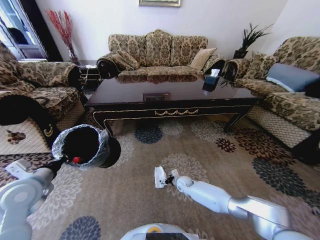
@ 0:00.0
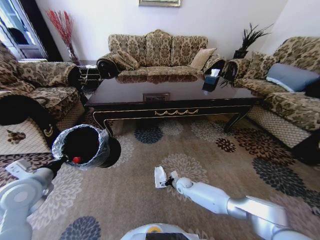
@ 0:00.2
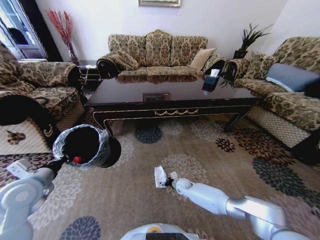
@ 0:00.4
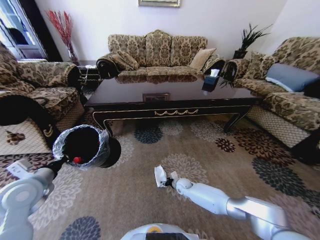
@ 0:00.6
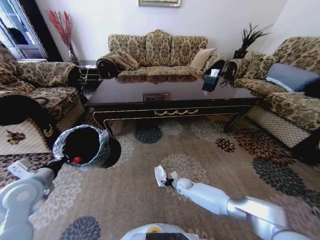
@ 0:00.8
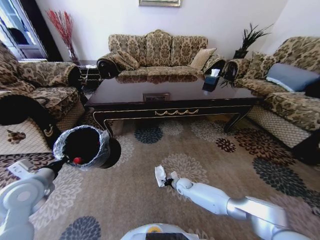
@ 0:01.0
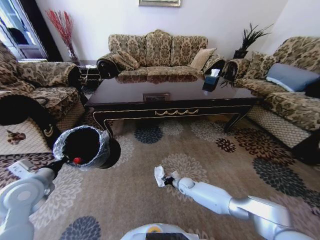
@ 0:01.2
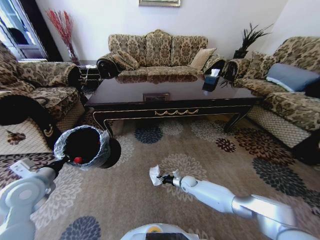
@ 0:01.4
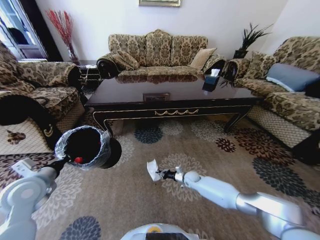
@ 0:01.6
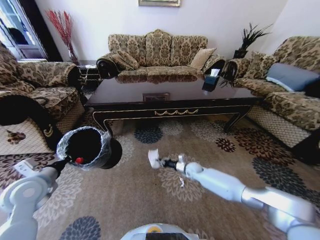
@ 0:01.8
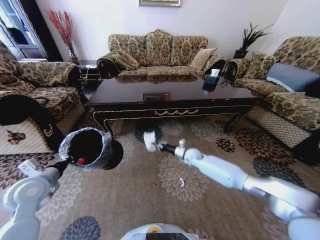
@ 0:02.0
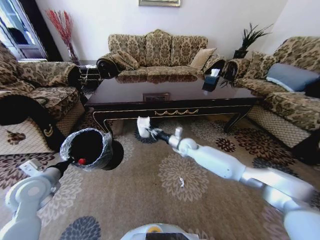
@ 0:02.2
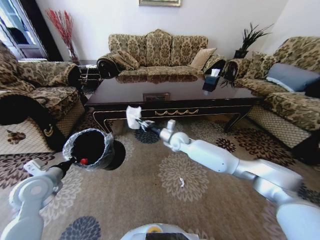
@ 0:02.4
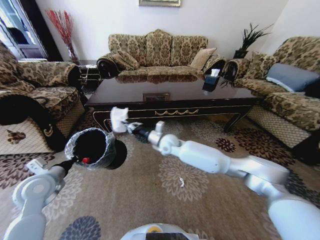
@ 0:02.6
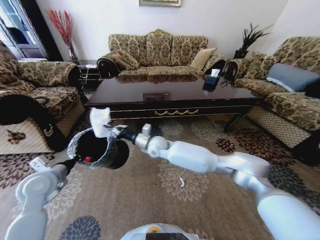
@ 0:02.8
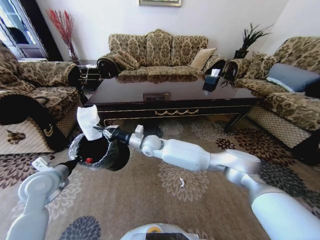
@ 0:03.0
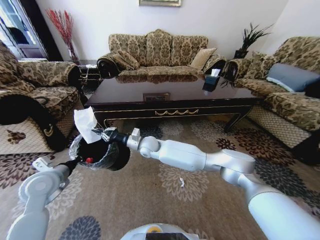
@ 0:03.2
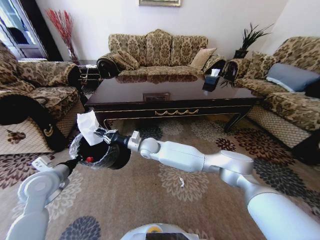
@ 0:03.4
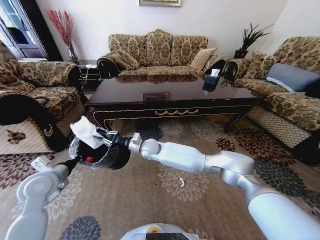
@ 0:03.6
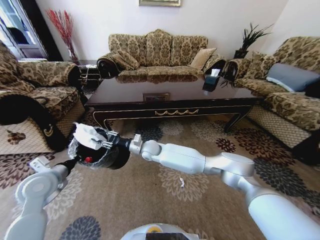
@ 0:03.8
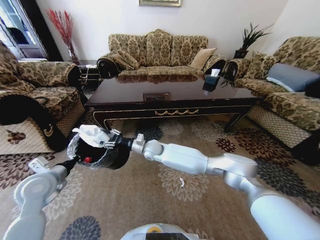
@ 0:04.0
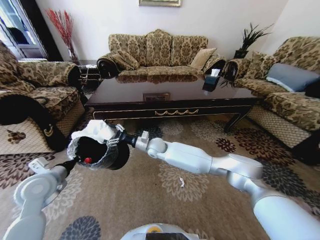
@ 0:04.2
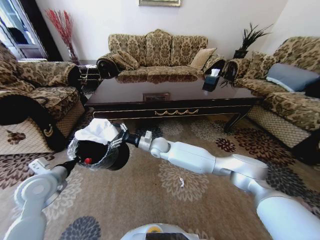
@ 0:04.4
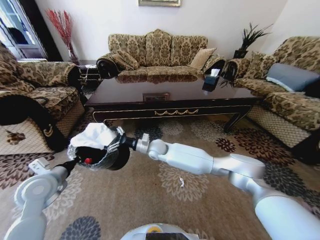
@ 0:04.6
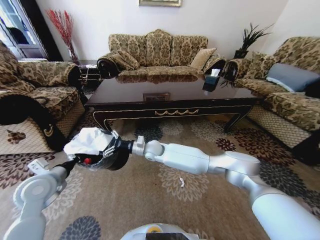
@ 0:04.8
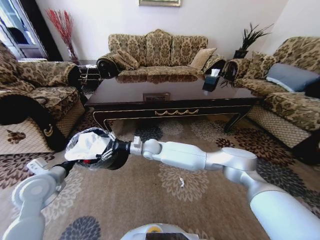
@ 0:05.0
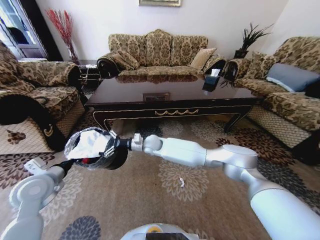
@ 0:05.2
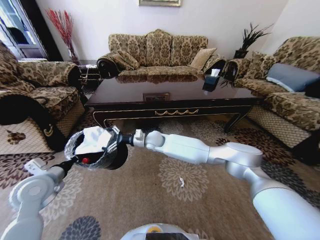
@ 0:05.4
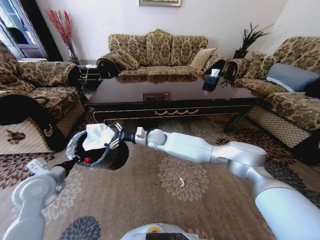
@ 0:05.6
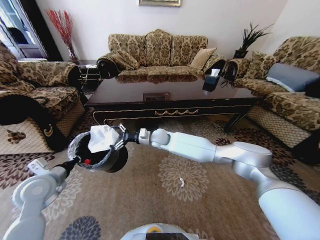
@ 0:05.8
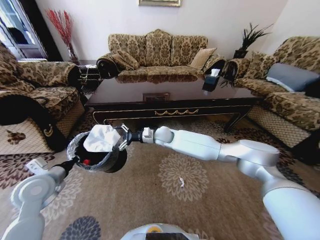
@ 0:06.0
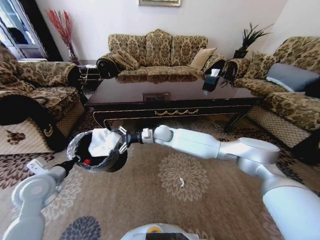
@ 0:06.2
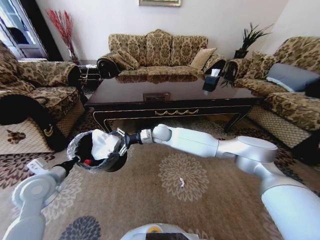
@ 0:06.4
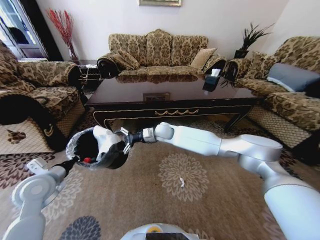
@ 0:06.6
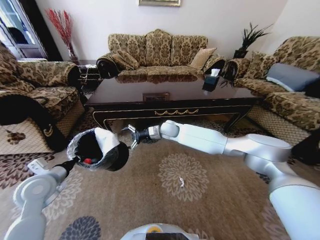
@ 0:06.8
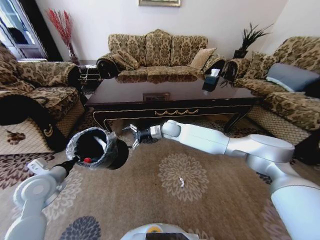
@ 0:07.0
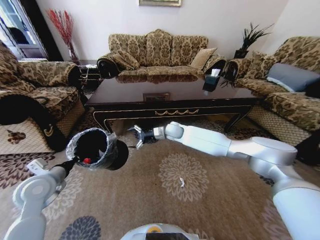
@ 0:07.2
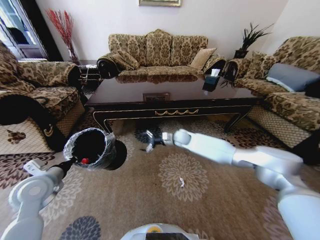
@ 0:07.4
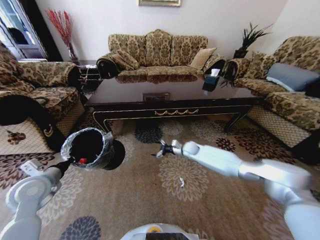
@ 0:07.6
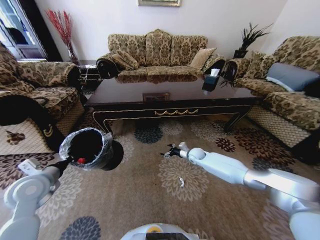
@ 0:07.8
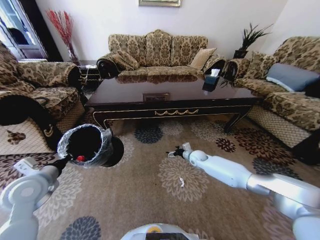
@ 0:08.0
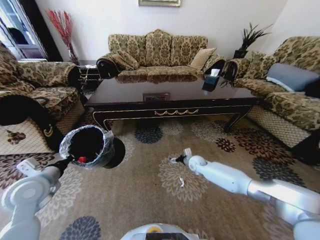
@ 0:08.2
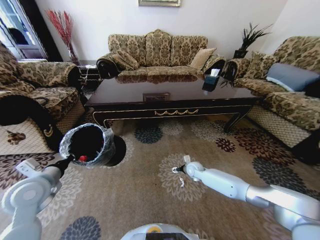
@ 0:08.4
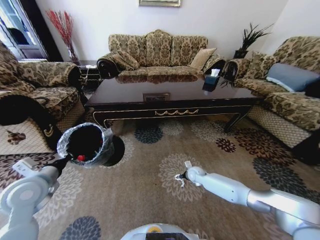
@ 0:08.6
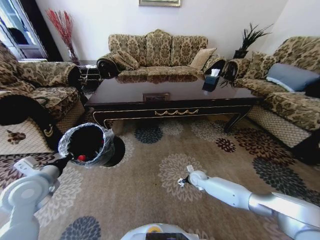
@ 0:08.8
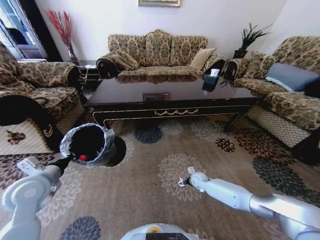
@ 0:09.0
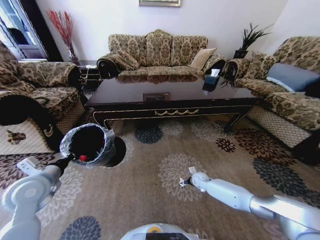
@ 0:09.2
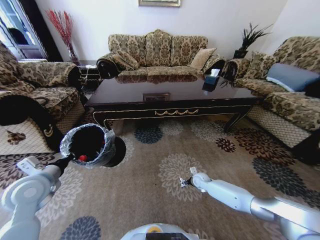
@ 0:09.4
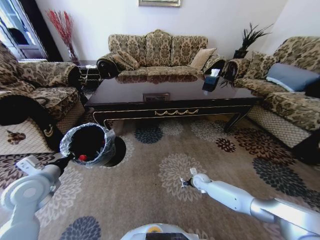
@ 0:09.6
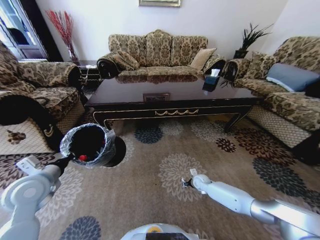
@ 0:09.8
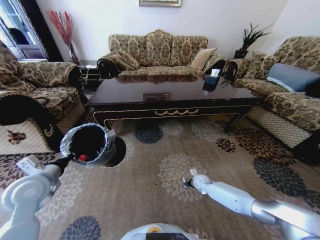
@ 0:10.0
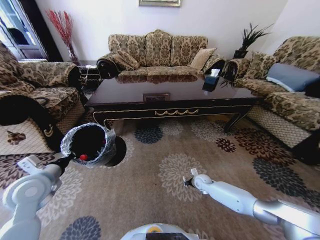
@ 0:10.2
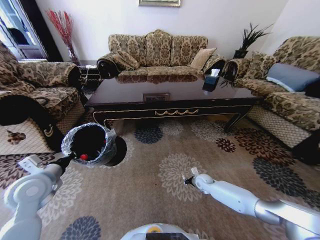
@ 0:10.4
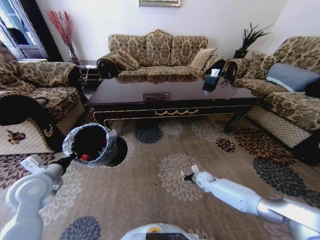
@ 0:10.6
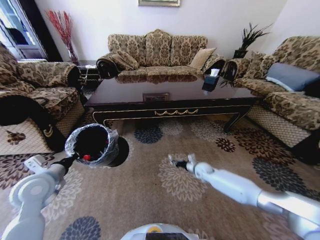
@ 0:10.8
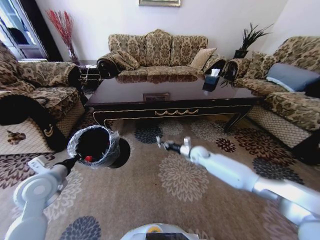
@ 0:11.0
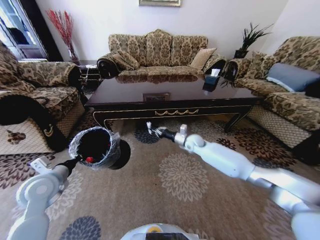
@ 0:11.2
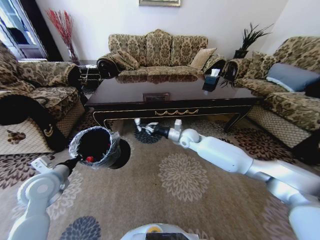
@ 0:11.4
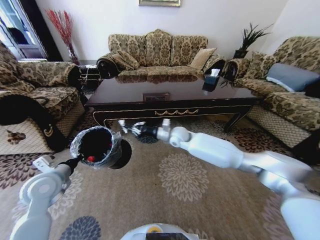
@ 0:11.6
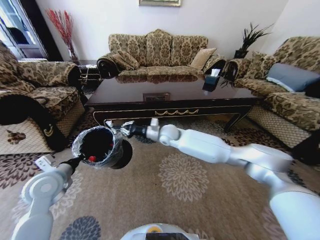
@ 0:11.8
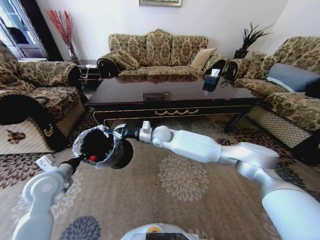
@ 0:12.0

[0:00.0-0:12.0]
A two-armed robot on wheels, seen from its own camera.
Task of the whole recording: Move to the front of the table and pick up the trash from the floor, then place it into the trash bin.
0:00.0 to 0:01.6: The right gripper ends up about 5 cm from where it was, and closes its fingers.
0:01.6 to 0:03.0: The right gripper travels upward and to the left by approximately 40 cm.
0:03.0 to 0:04.4: The right gripper moves roughly 5 cm, and opens its fingers.
0:04.4 to 0:06.0: The right gripper changes place by approximately 5 cm.
0:06.0 to 0:07.6: The right gripper heads to the right and downward, covering roughly 25 cm.
0:07.6 to 0:09.0: The right gripper moves downward and backward, roughly 20 cm.
0:09.0 to 0:10.4: The right gripper closes its fingers.
0:10.4 to 0:12.0: The right gripper shifts about 40 cm upward and to the left.

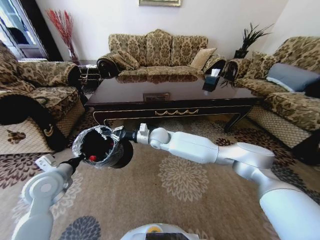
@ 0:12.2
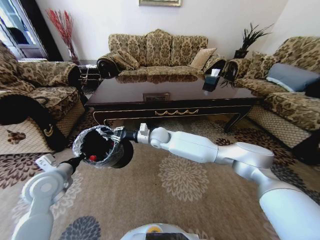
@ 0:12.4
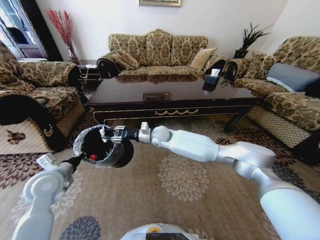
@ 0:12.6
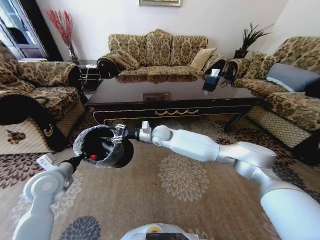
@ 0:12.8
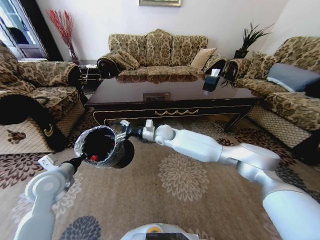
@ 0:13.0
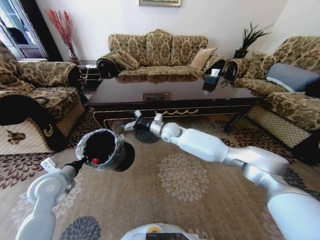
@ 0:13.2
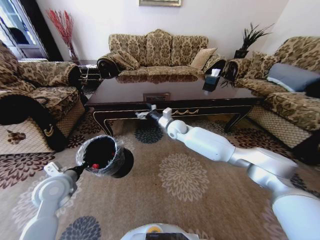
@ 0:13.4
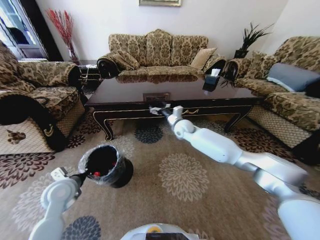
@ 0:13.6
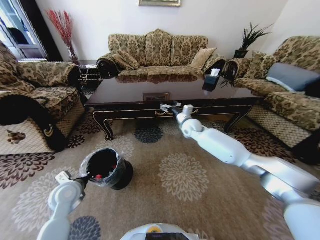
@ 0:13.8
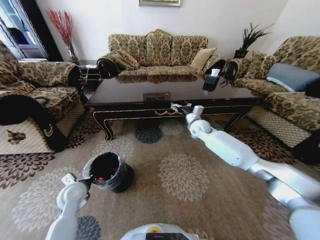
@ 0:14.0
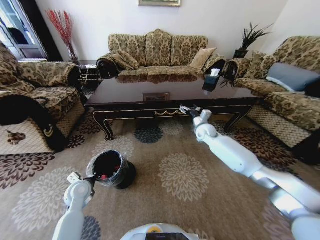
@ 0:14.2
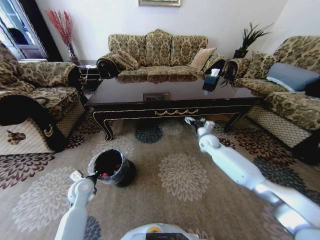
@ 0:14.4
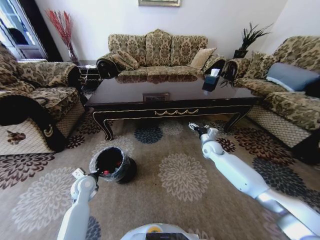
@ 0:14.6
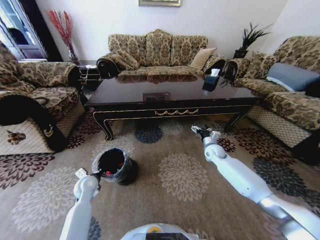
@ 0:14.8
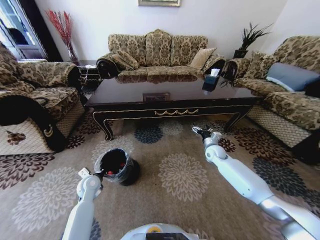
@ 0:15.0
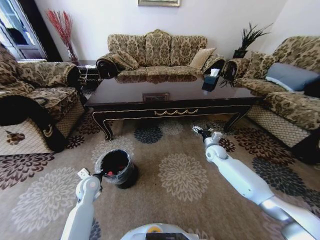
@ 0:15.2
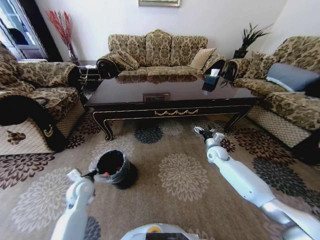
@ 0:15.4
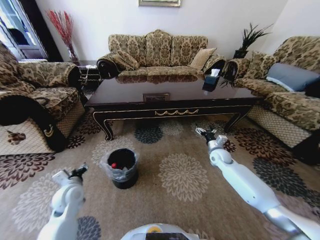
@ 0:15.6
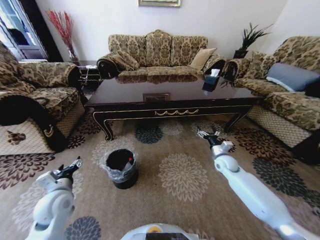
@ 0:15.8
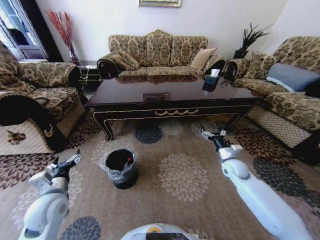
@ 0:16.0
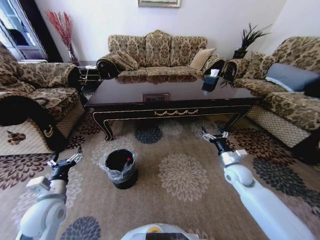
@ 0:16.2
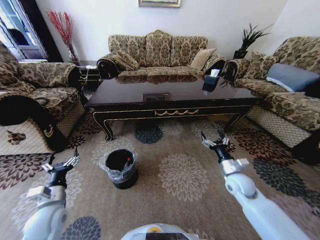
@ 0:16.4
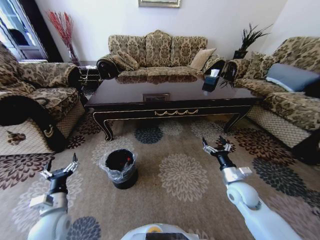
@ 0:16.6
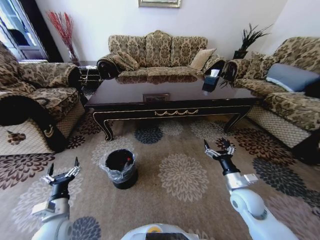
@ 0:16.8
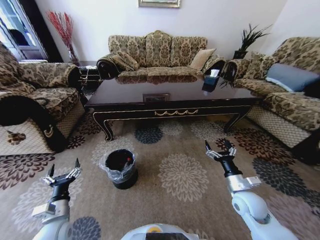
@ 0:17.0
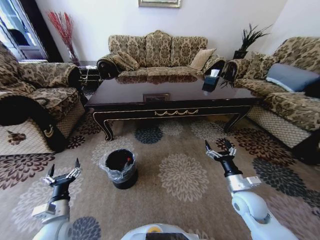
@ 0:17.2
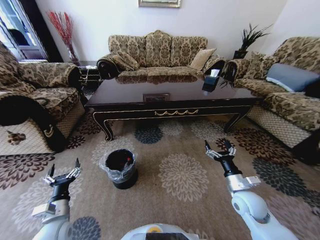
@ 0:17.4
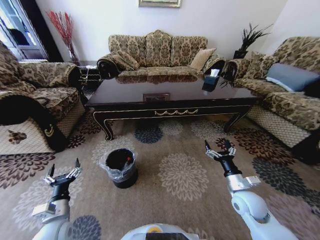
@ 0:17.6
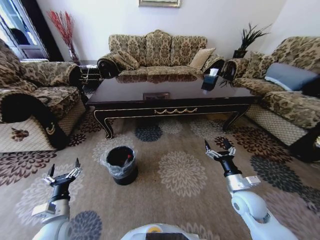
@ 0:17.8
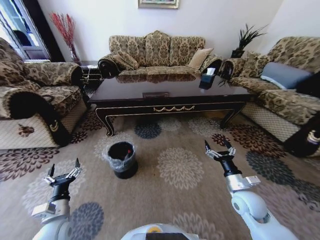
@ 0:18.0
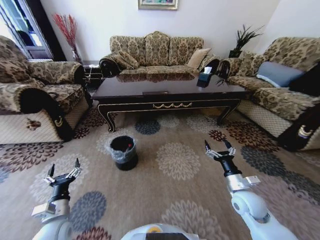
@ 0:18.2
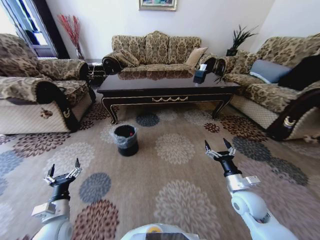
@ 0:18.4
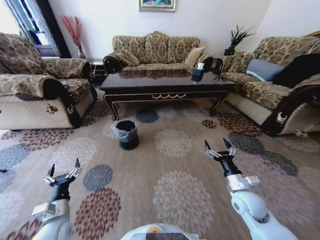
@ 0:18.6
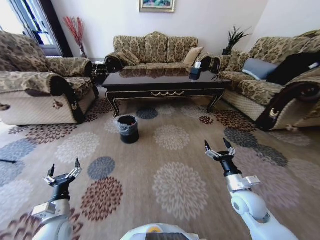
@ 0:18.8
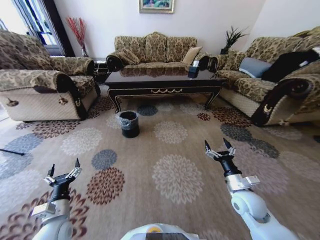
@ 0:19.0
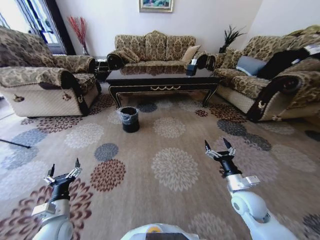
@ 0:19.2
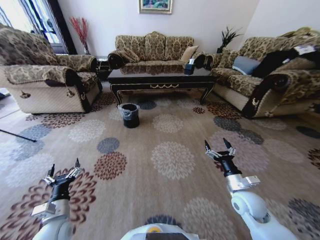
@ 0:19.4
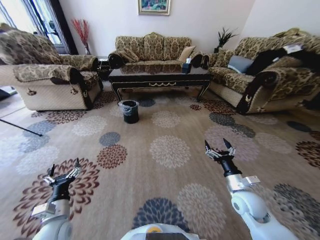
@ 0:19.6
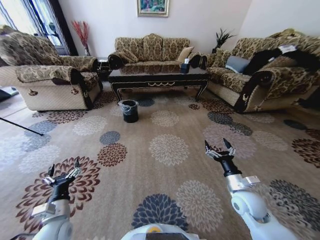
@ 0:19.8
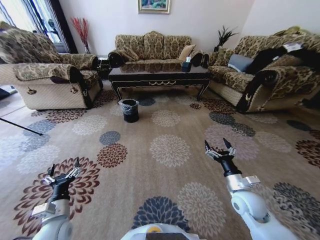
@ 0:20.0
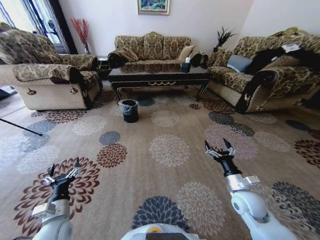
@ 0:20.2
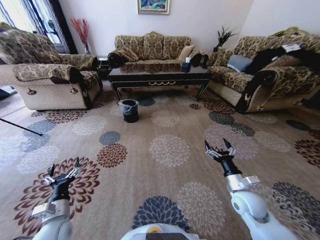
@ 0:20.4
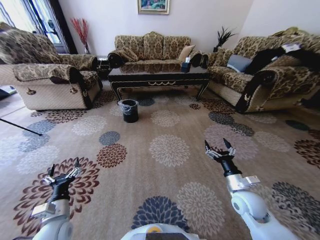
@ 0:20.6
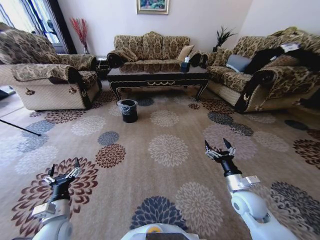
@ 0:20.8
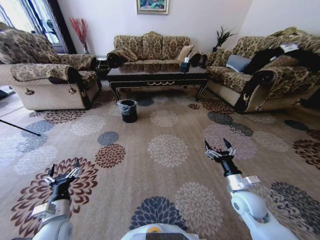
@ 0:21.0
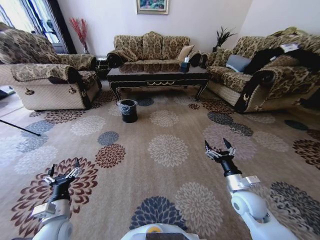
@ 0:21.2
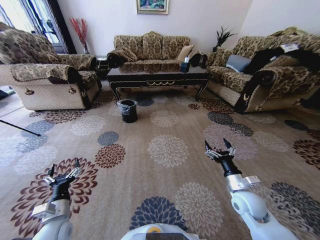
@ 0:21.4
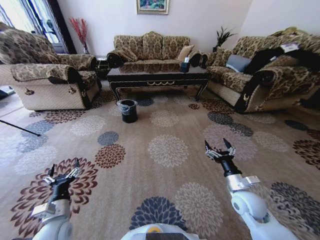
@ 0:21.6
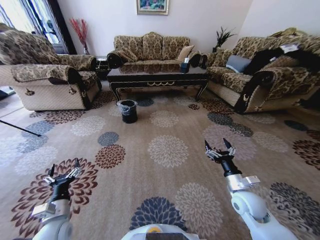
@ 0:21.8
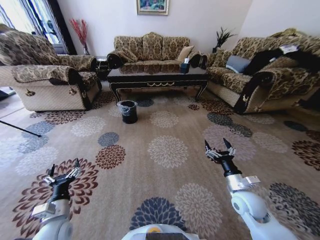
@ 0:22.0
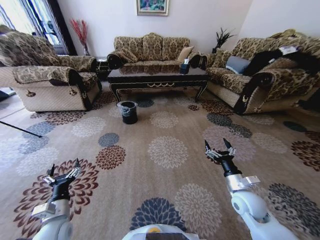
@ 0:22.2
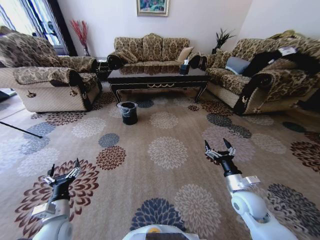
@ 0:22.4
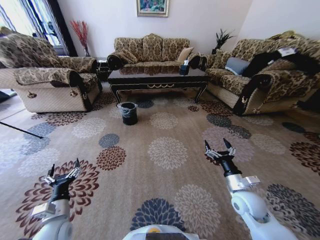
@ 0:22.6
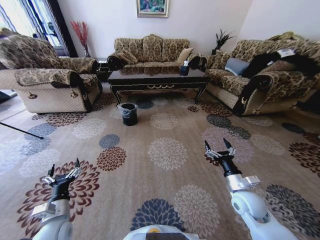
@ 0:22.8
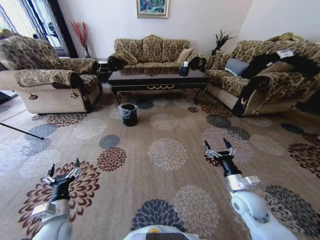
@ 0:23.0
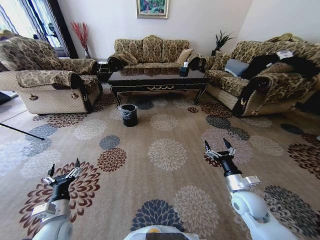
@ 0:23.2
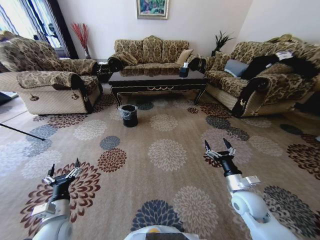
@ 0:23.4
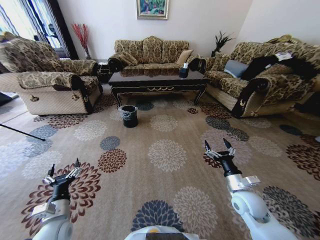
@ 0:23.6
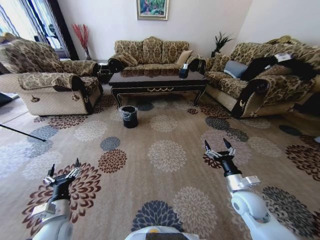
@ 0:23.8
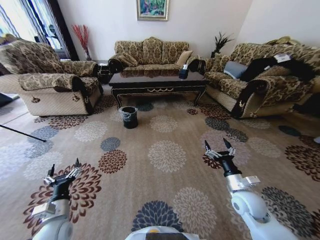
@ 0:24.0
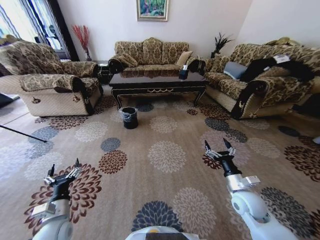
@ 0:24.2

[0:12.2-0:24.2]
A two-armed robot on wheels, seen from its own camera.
Task of the whole recording: Move to the front of the table and pick up the trash from the floor, then place it into the trash bin.
0:12.2 to 0:13.8: The right gripper heads to the right, covering approximately 15 cm, and opens up; the left gripper moves downward, roughly 10 cm.
0:13.8 to 0:15.2: The left gripper travels downward and forward by some 10 cm; the right gripper goes approximately 20 cm to the right, downward and backward.
0:15.2 to 0:16.6: The grippers both shift backward by some 15 cm. The left gripper opens up.
0:19.8 to 0:22.6: Neither gripper changes place.
